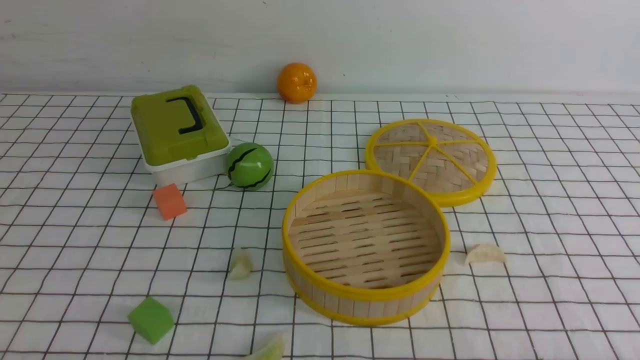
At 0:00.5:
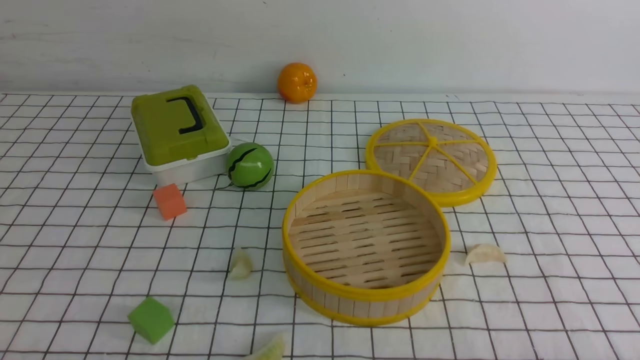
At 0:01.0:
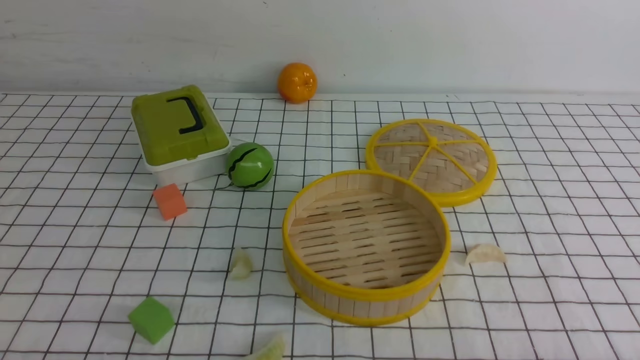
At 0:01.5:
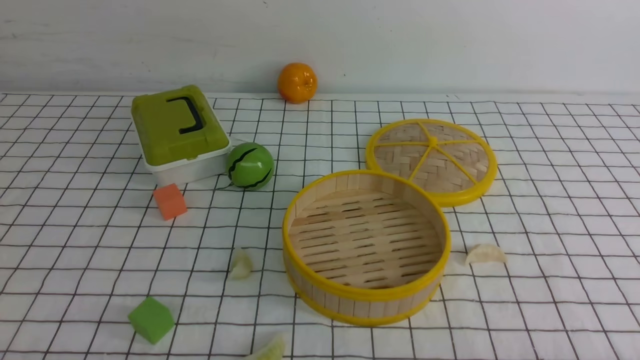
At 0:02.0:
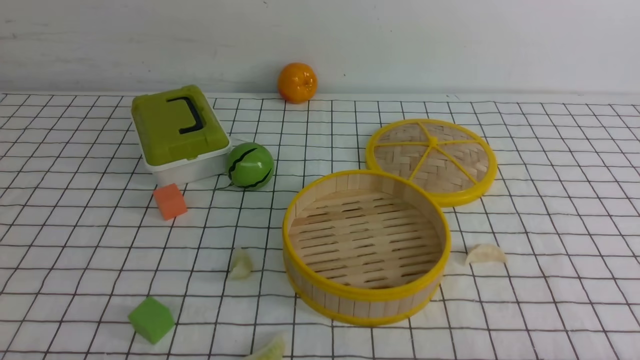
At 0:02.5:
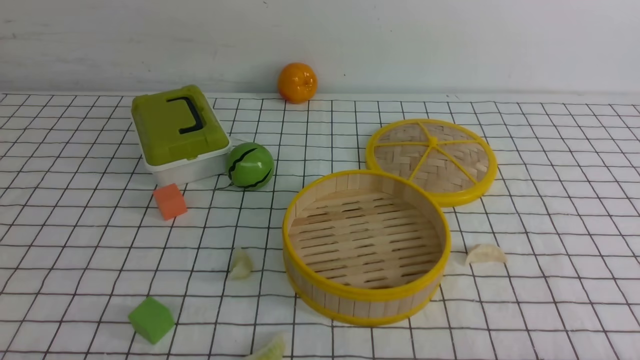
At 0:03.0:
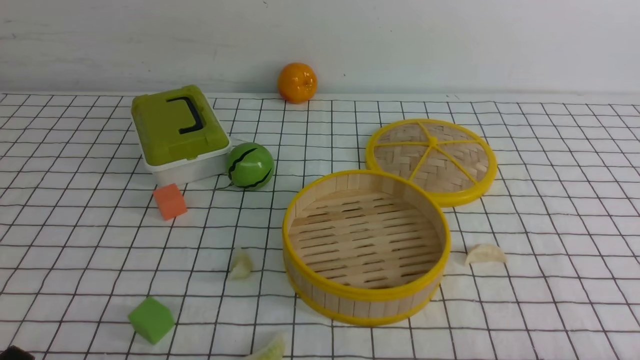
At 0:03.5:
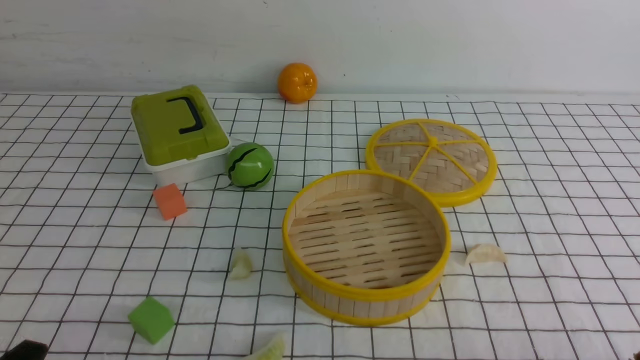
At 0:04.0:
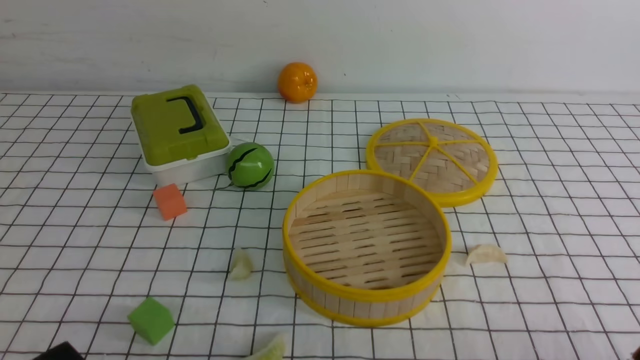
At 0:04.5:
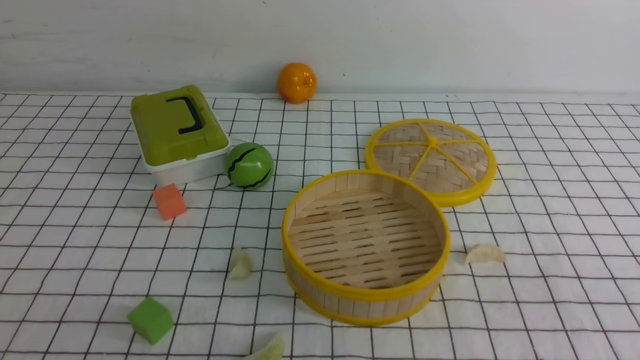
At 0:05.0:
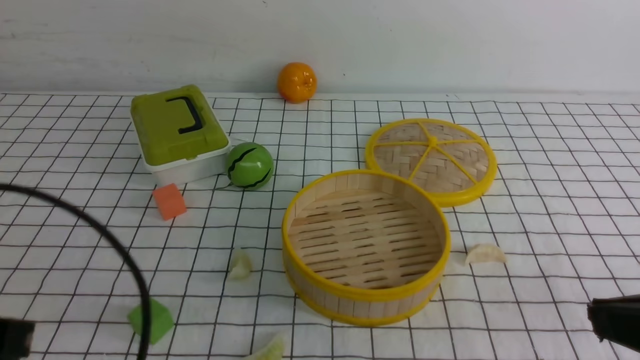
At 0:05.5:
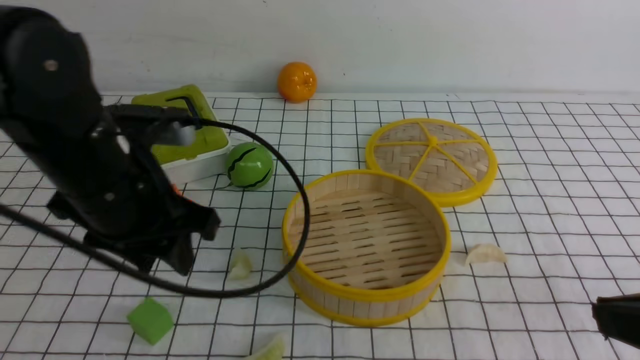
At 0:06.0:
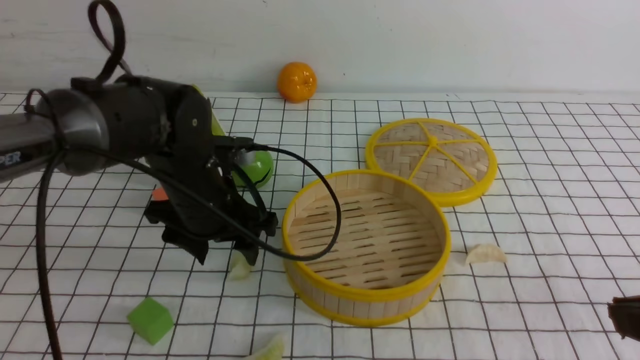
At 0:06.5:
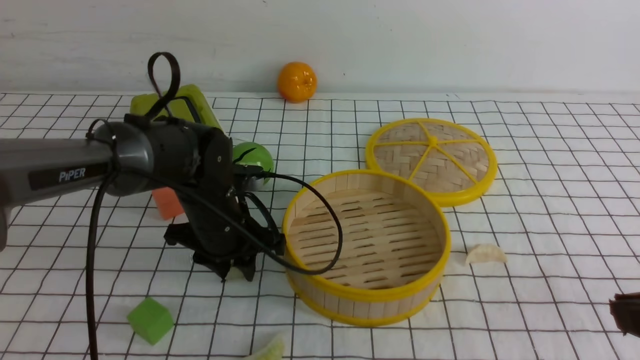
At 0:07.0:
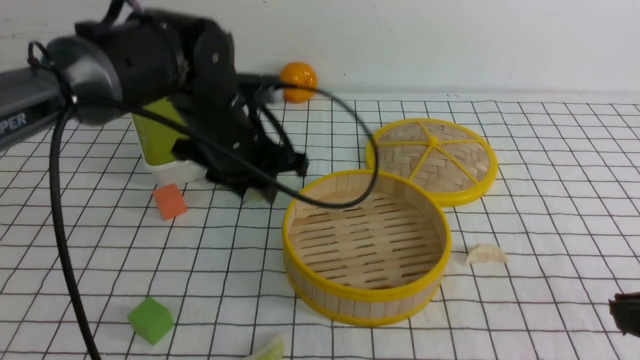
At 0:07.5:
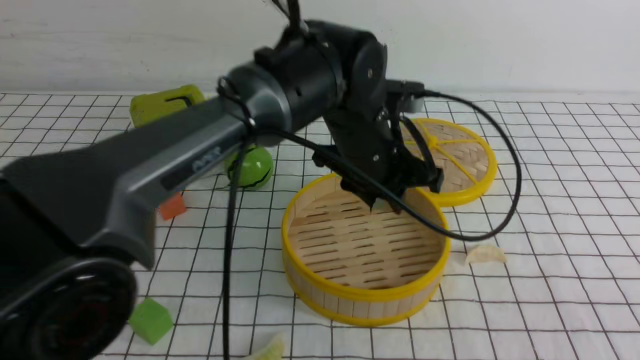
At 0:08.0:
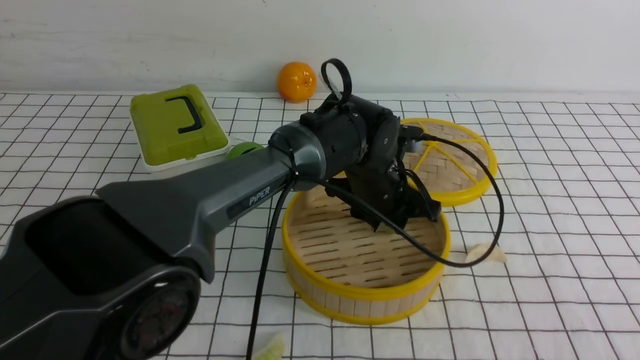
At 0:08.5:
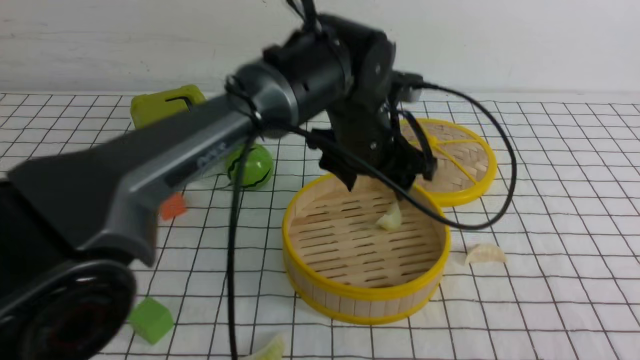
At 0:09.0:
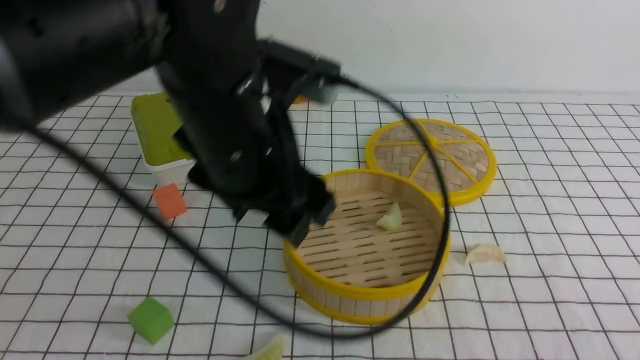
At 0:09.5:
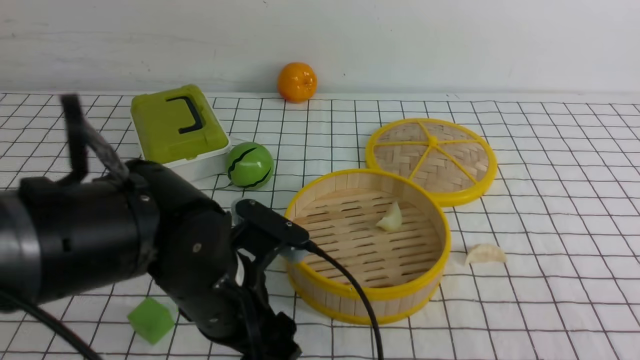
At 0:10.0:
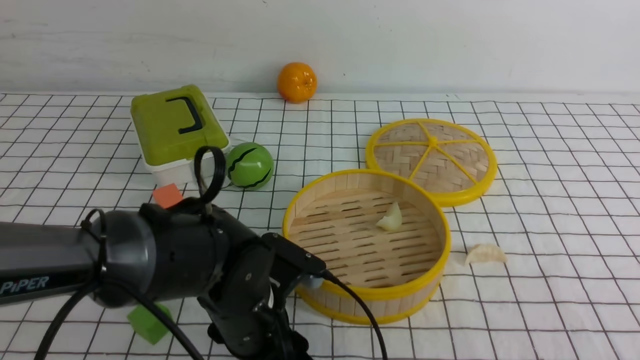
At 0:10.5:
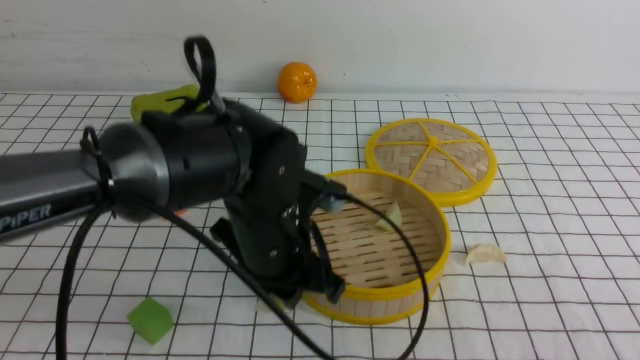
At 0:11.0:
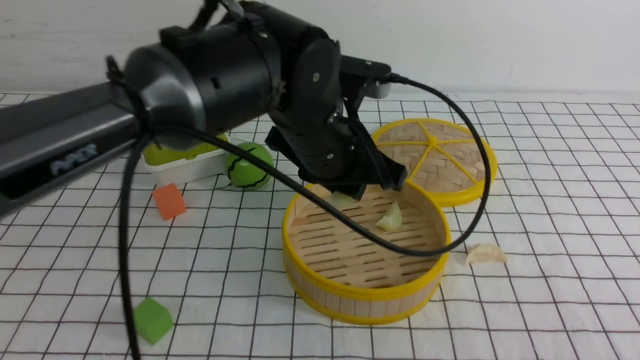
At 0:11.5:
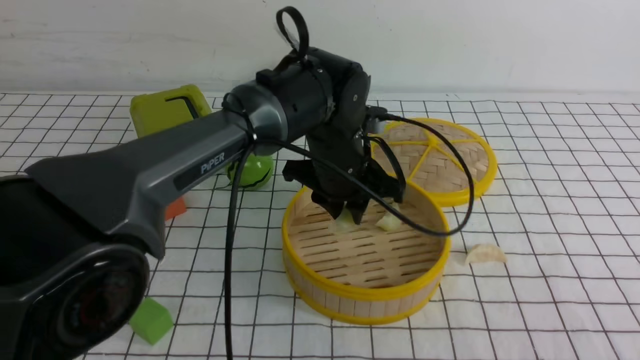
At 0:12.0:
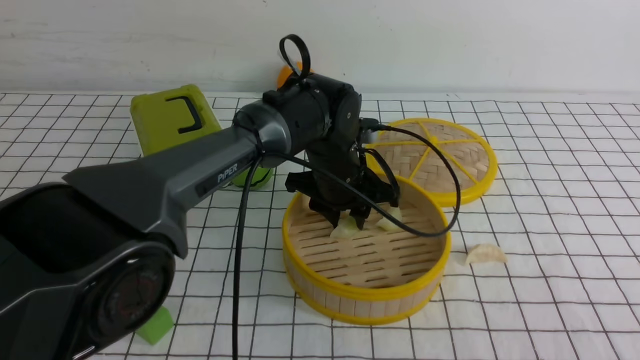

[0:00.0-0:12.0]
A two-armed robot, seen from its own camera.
Task of the whole recording: put the dumplings into the steamer on the table with the white tablecloth.
Step, 0:00.0 to 0:07.0: use the left arm to grab a dumpling.
Step, 0:07.5 to 0:08.0: use the left arm to put the dumpling into the steamer.
Step, 0:09.0 to 0:10.0: use the left arm to grab a dumpling.
0:00.0 to 0:02.0: Neither gripper changes place.
0:04.0 to 0:06.0: The left gripper is displaced forward by some 30 cm, and opens up. The right gripper travels upward and forward by about 10 cm, and closes.
0:06.0 to 0:08.0: The right gripper is displaced backward by approximately 5 cm, while the left gripper is displaced to the right by about 20 cm, and closes its fingers.
0:08.0 to 0:10.0: The left gripper travels backward and to the left by about 20 cm, and moves some 15 cm upward and comes back.
0:10.0 to 0:12.0: The left gripper heads forward and to the right, covering roughly 20 cm.

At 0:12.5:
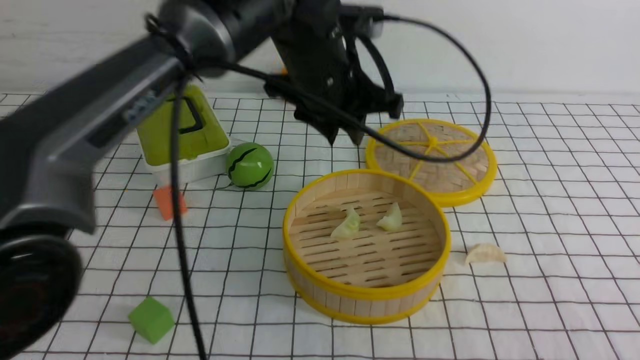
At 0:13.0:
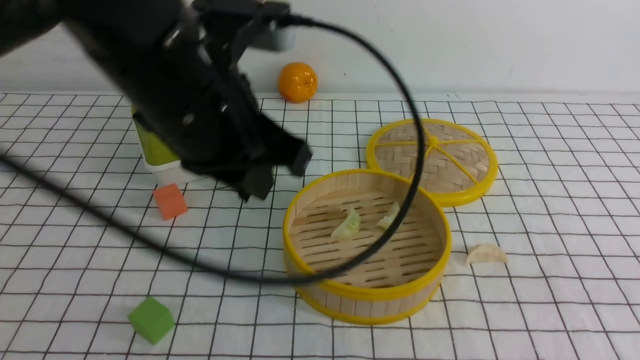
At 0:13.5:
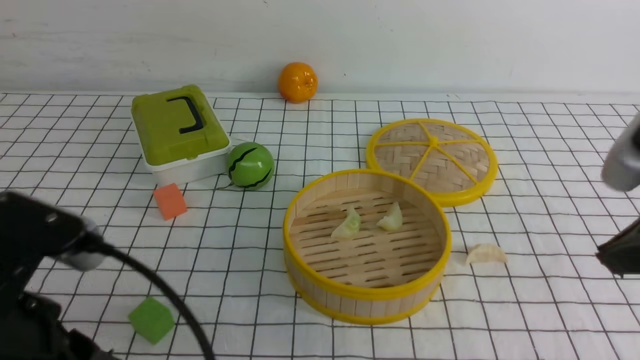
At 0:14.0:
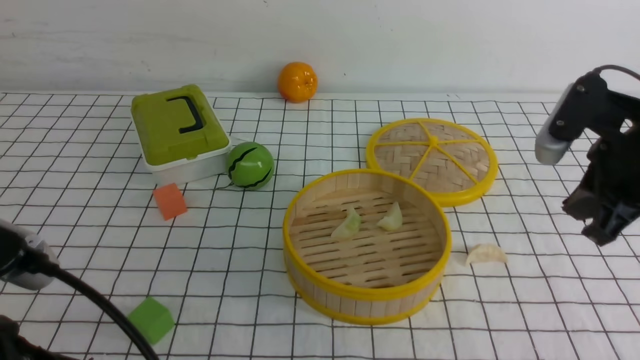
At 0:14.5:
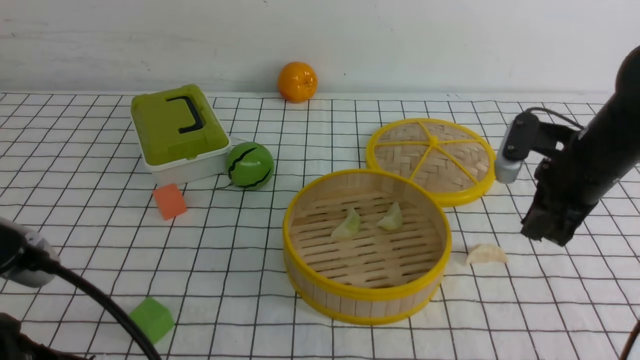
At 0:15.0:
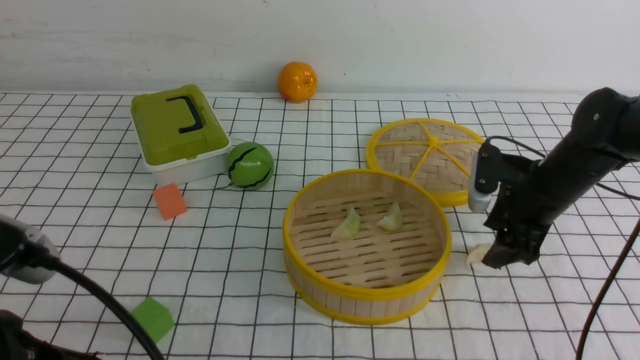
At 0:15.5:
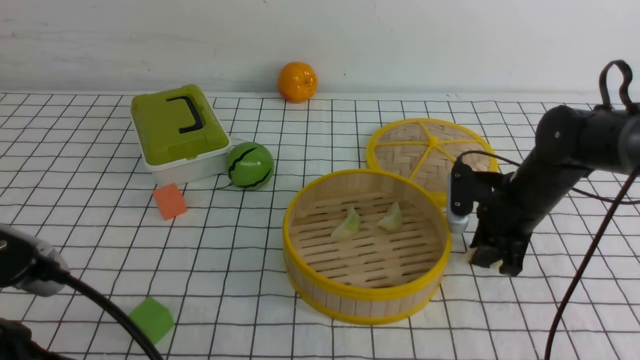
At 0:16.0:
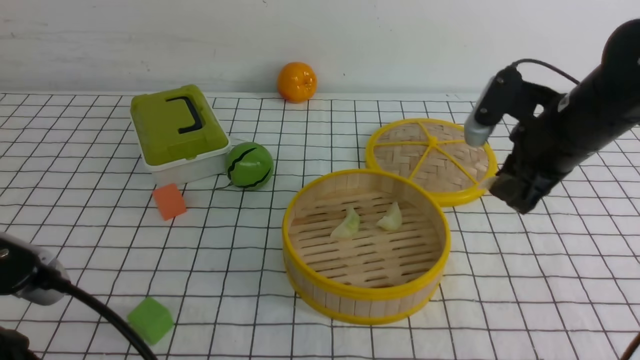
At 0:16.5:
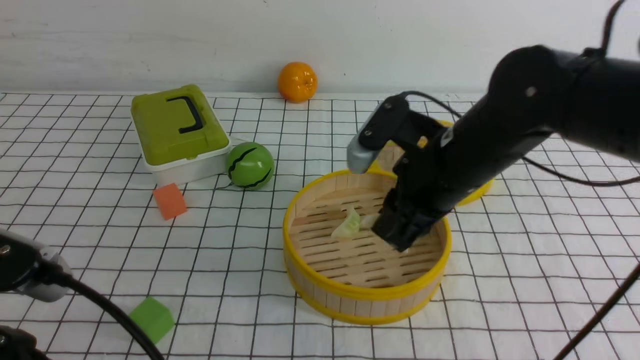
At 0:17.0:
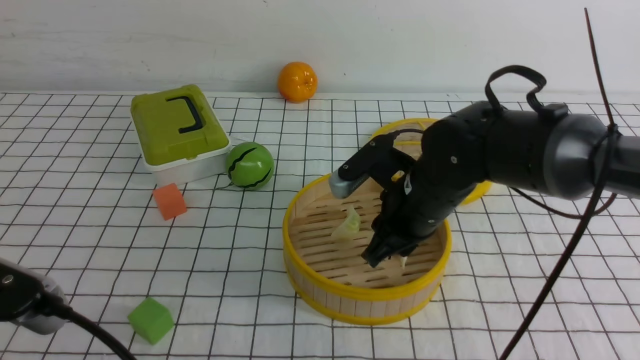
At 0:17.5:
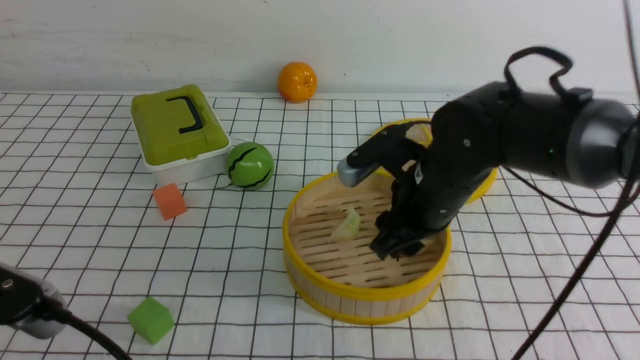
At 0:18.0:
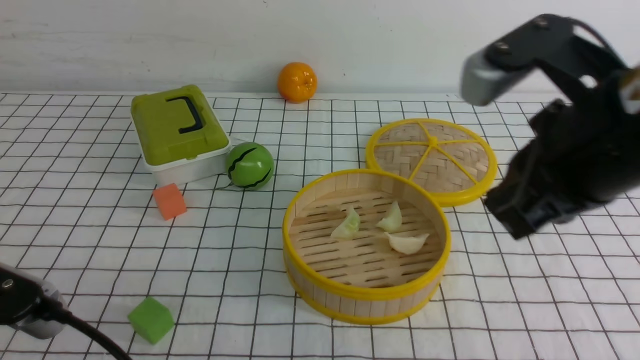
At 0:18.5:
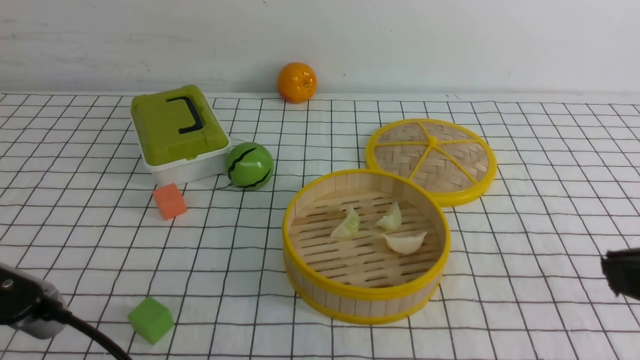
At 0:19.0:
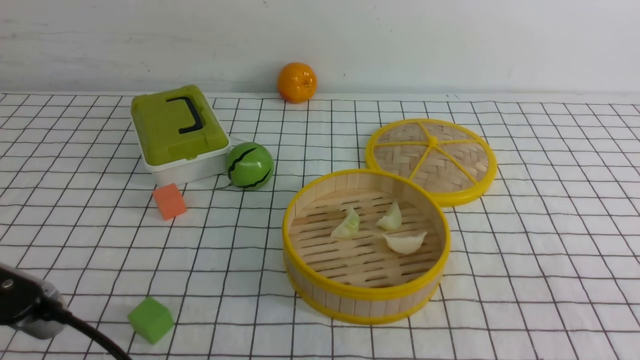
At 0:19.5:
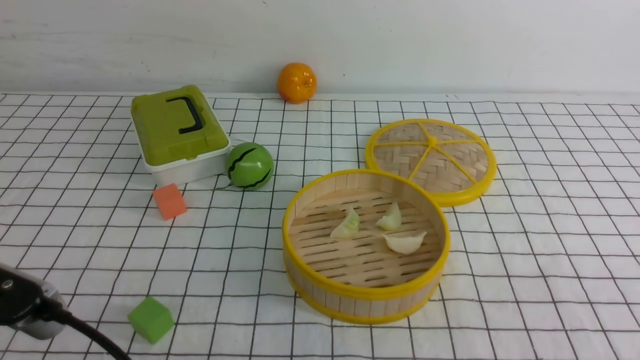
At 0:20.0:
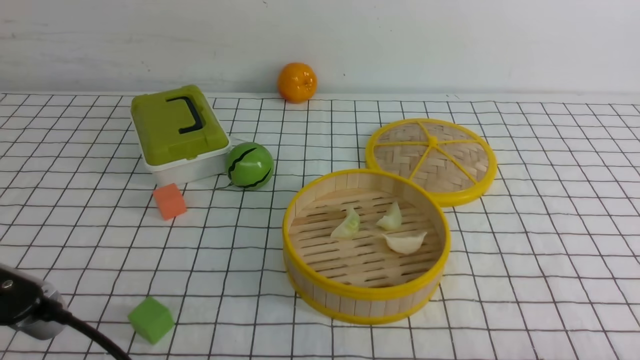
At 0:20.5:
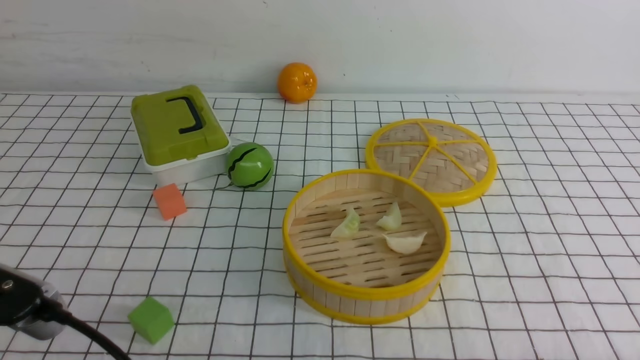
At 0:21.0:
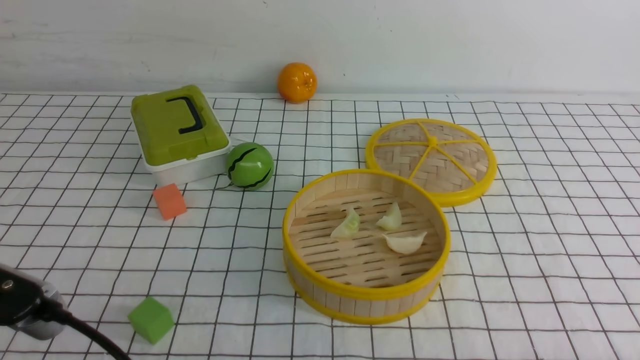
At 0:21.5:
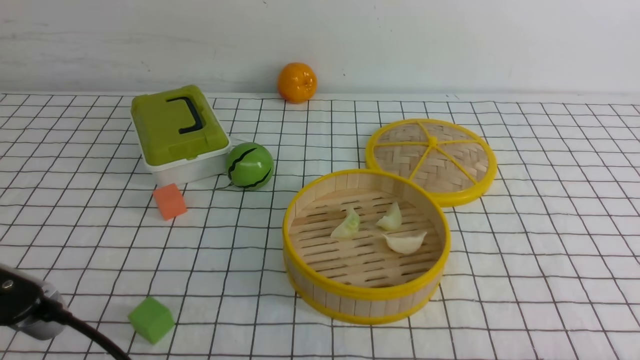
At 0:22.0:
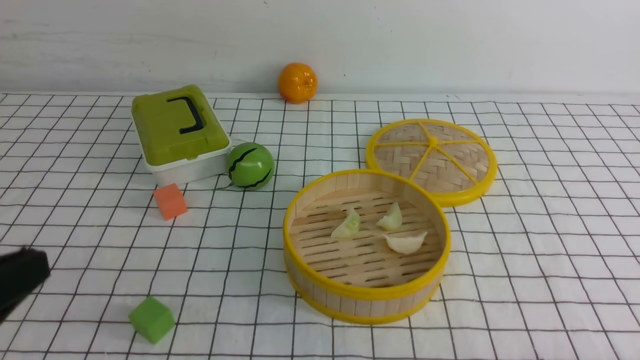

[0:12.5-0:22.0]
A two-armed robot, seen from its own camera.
Task of the whole recording: put the dumplings into the steamer on the table with the white tablecloth.
Step, 0:13.0 to 0:16.0: use the right arm to grab a dumpling.
Step, 0:16.5 to 0:17.5: use the right arm to put the dumpling into the steamer.
0:12.5 to 0:14.5: The right gripper heads forward, covering some 30 cm, and closes, then opens again. Meanwhile the left gripper moves backward and to the left, roughly 35 cm.
0:14.5 to 0:16.5: The right gripper goes approximately 15 cm to the left, and opens and closes again.
0:16.5 to 0:18.0: The right gripper shifts roughly 20 cm backward, upward and to the right, and closes.
0:18.0 to 0:20.0: The right gripper is displaced downward, backward and to the right by about 30 cm.
